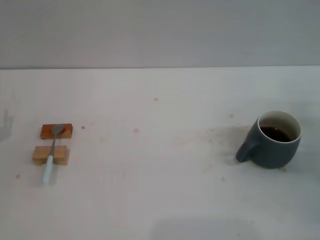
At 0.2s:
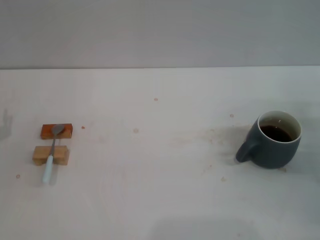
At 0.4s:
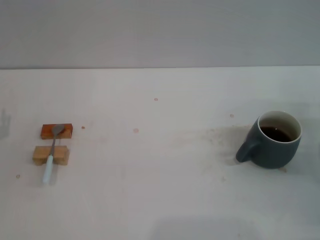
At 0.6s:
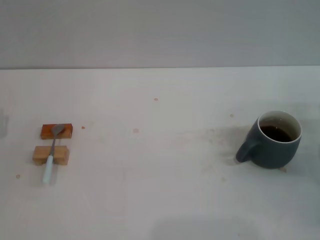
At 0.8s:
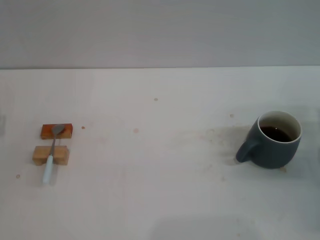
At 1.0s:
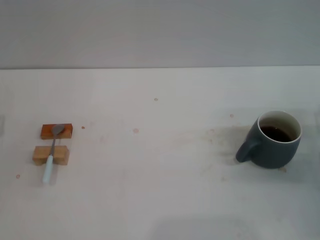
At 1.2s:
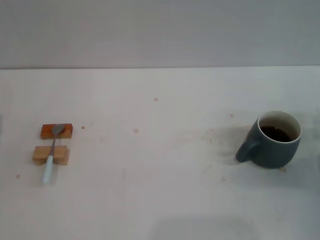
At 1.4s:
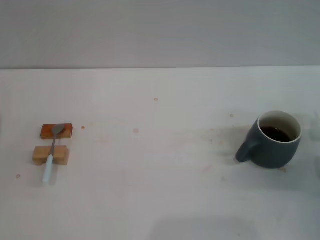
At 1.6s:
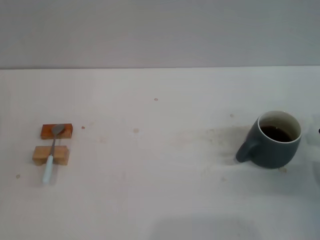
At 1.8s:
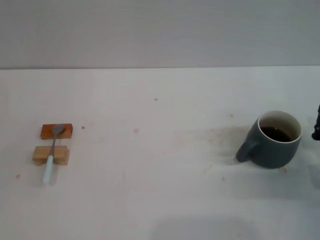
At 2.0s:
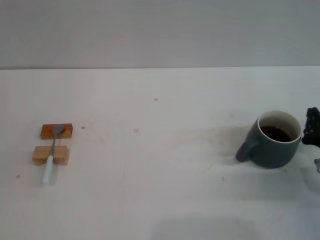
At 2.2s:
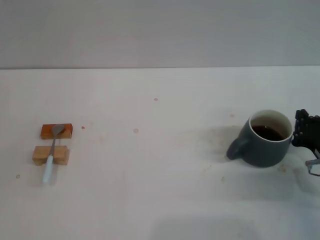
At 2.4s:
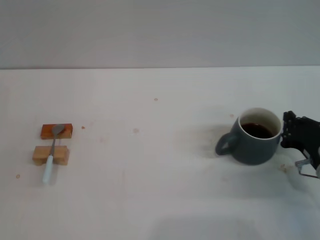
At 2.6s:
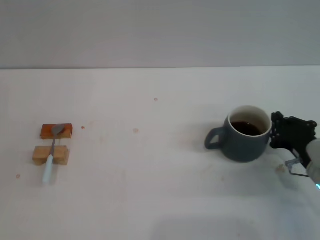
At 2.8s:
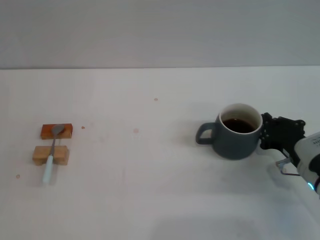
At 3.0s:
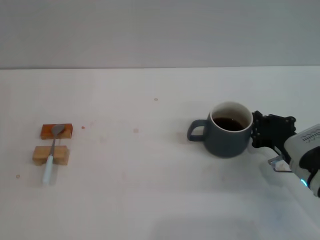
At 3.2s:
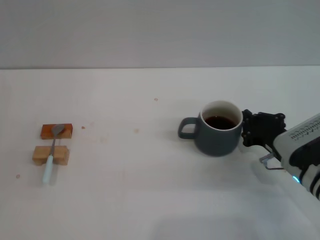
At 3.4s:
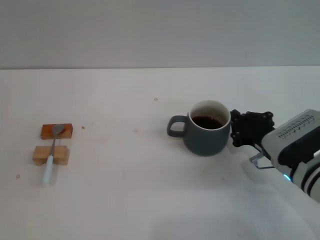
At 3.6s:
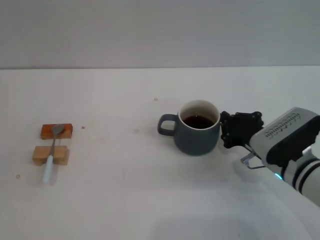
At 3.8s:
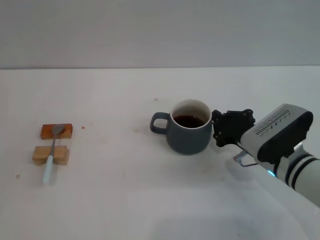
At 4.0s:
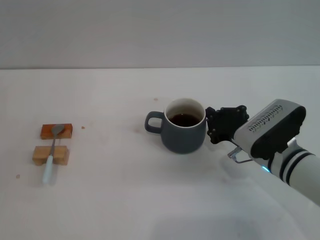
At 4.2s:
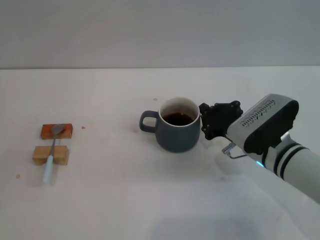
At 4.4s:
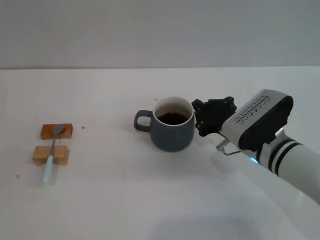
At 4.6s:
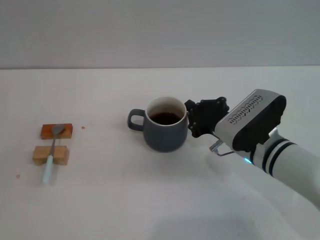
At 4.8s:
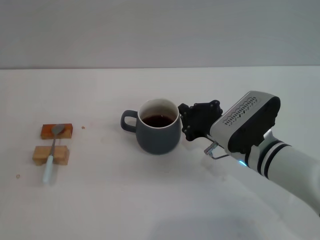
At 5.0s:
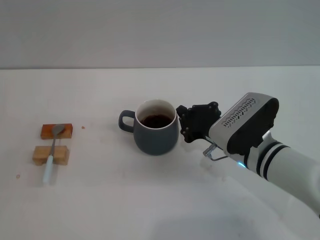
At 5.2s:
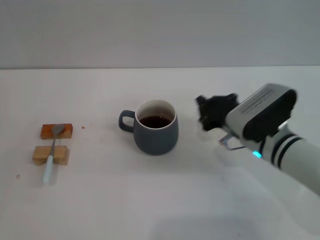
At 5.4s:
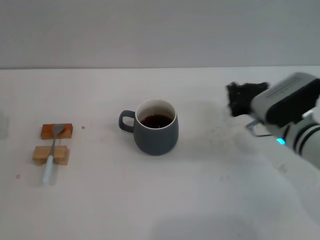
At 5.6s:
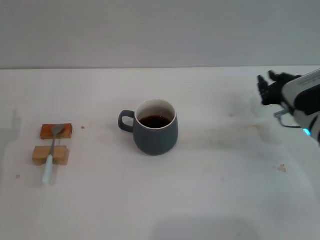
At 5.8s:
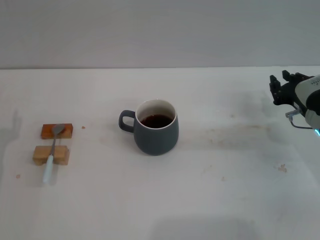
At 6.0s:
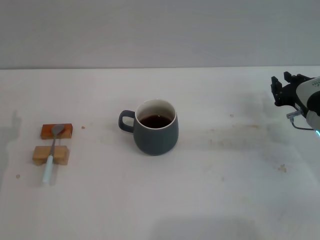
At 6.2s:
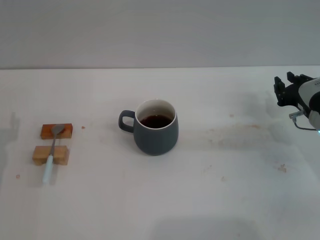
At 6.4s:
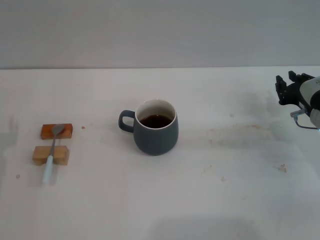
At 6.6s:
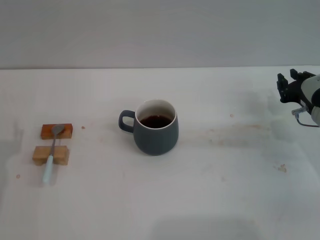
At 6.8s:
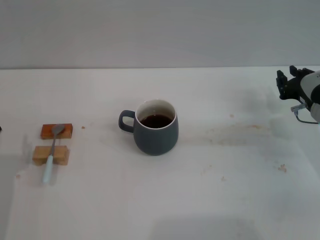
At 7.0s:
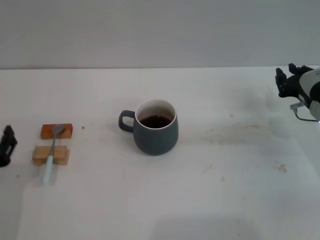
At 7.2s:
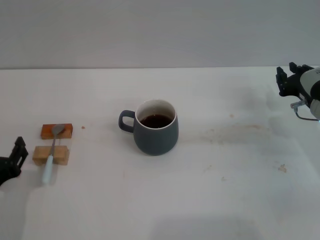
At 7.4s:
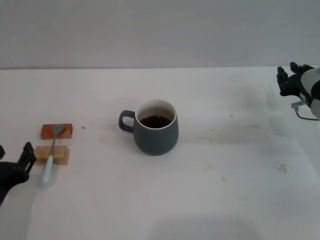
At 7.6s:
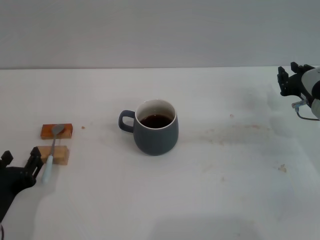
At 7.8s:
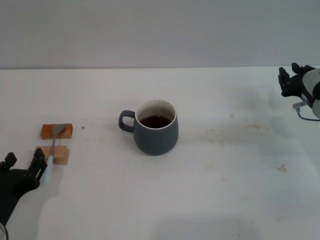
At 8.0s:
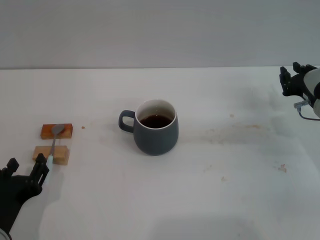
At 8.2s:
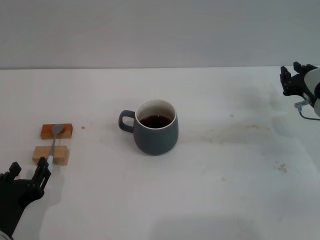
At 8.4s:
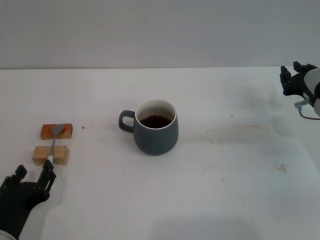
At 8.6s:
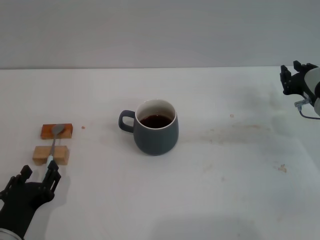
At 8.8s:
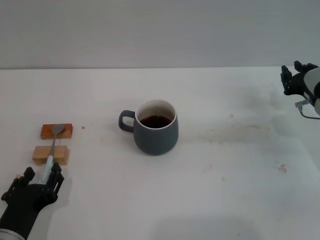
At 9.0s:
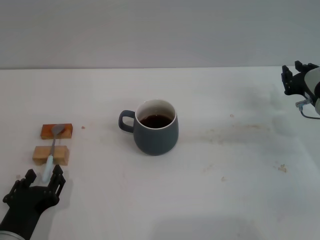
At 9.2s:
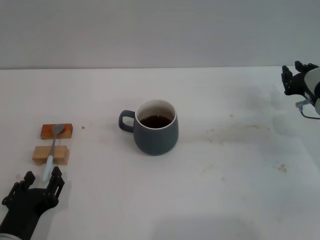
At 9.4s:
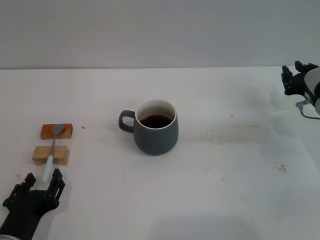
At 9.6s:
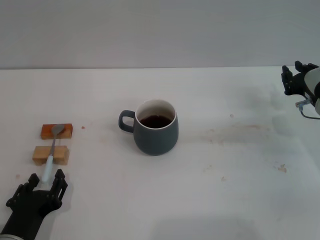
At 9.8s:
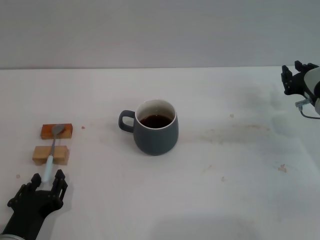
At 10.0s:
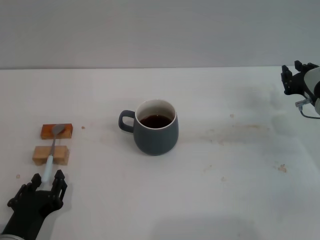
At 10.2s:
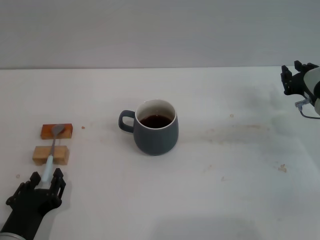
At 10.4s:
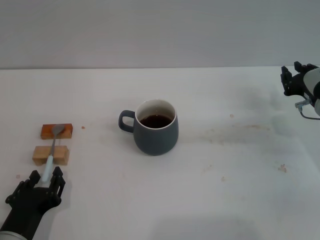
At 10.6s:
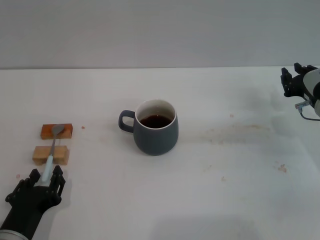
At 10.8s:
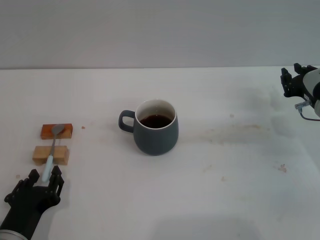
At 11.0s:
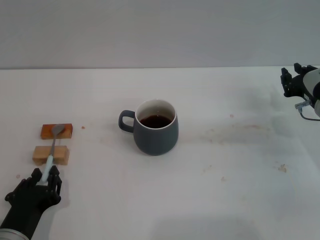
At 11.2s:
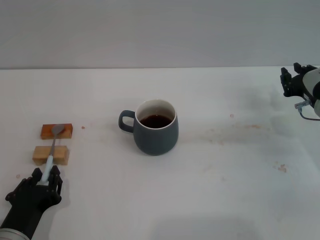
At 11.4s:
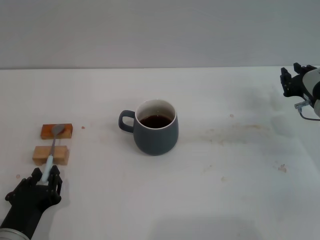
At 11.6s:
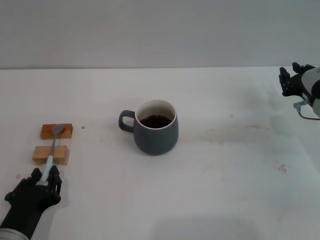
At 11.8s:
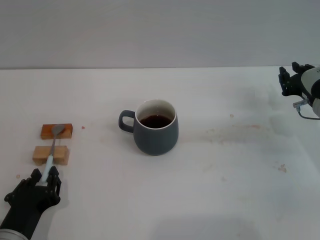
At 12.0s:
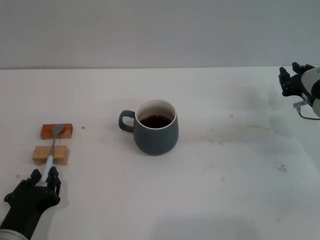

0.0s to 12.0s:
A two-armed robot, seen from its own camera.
Task of the whole recording: Move the grey cup to the center, lift the blue spoon, stir it three times in the cup, and put the spoon into the cup.
Step, 0.0s to 5.8s: Move the cup with coffee to the center of view with the right gripper.
1.6s to 3.0s: The right gripper is displaced to the left by roughly 10 cm.
3.0s to 4.4s: The right gripper moves to the left, approximately 10 cm.
4.4s to 6.0s: The right gripper goes about 10 cm to the right, and opens.
6.0s to 7.6s: The left gripper is displaced backward and to the right by approximately 15 cm.
7.6s to 9.0s: The grippers make only small movements.
9.0s to 12.0s: The two grippers keep their place.

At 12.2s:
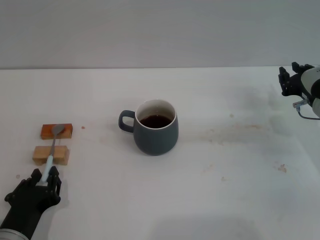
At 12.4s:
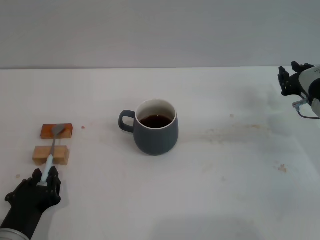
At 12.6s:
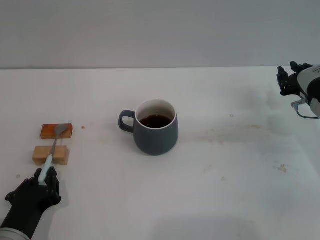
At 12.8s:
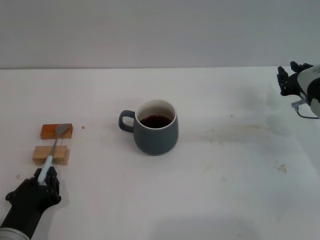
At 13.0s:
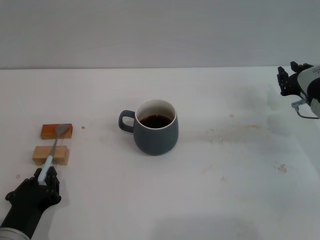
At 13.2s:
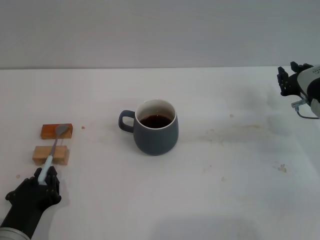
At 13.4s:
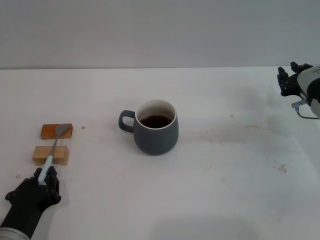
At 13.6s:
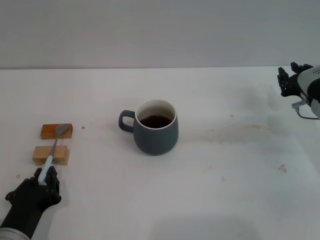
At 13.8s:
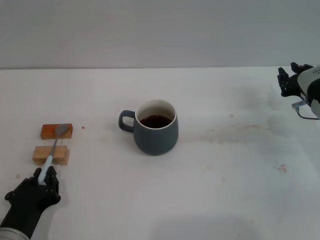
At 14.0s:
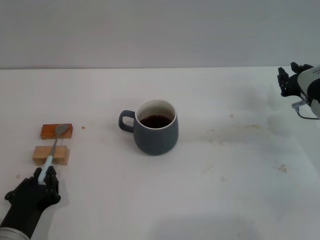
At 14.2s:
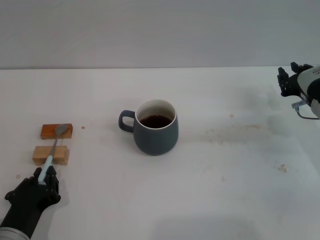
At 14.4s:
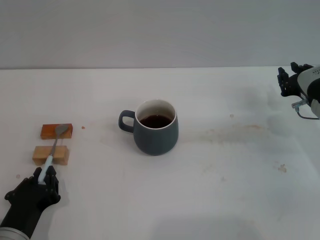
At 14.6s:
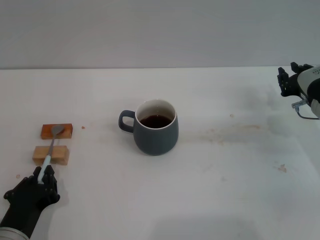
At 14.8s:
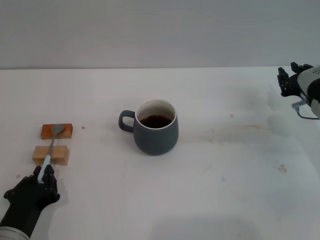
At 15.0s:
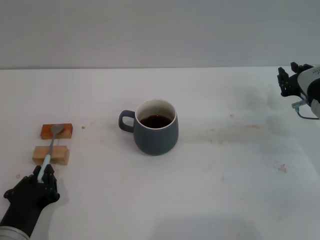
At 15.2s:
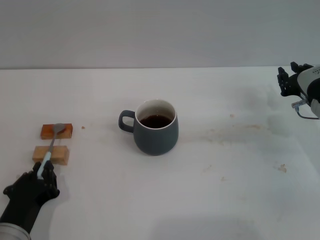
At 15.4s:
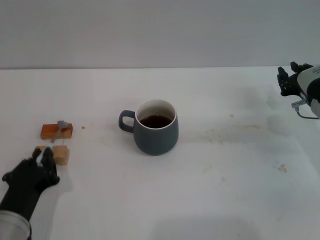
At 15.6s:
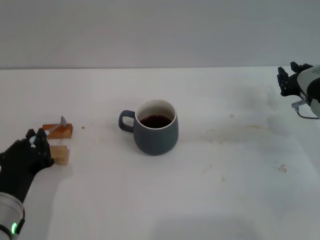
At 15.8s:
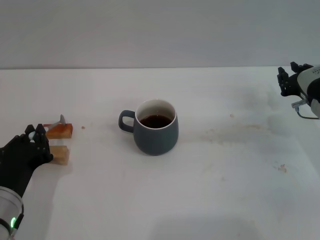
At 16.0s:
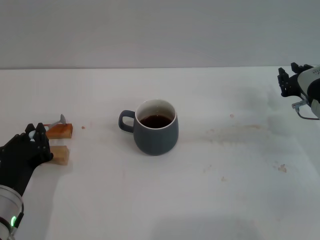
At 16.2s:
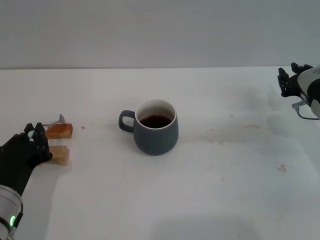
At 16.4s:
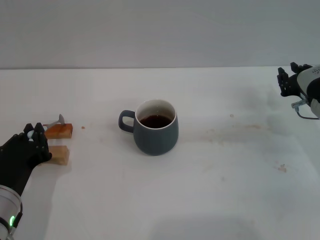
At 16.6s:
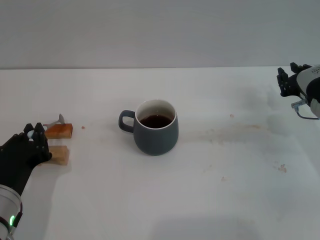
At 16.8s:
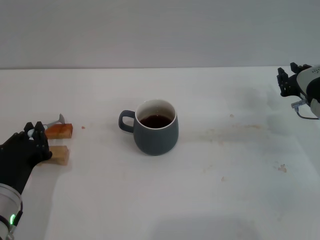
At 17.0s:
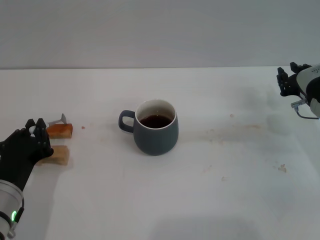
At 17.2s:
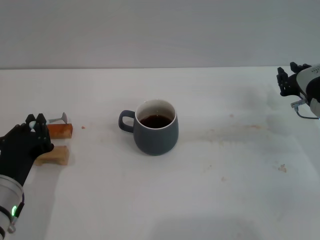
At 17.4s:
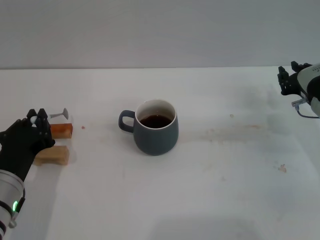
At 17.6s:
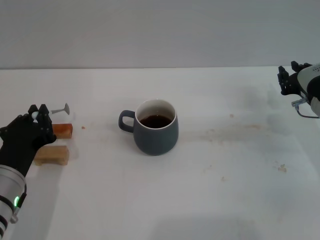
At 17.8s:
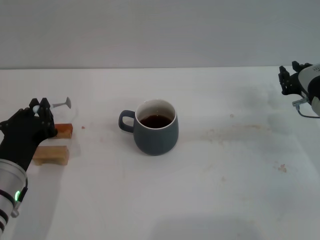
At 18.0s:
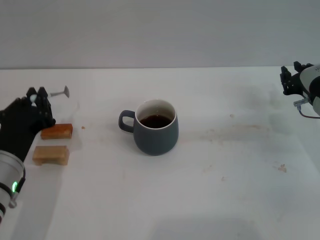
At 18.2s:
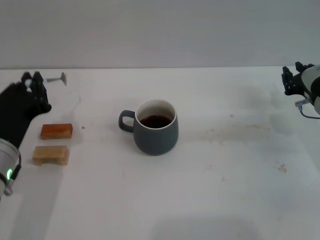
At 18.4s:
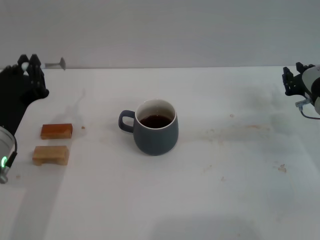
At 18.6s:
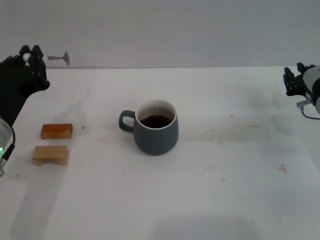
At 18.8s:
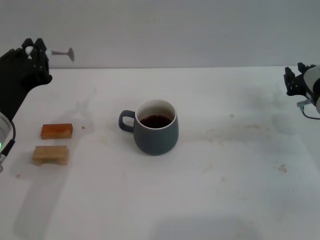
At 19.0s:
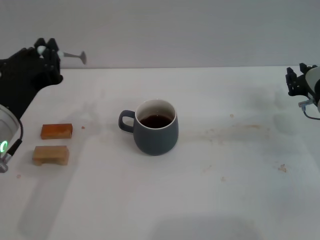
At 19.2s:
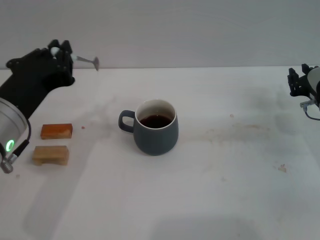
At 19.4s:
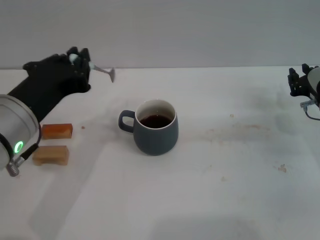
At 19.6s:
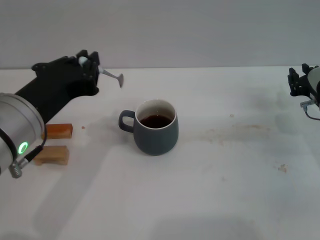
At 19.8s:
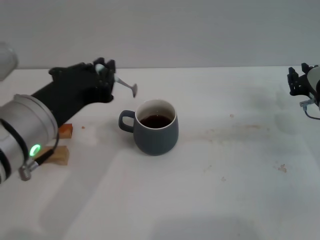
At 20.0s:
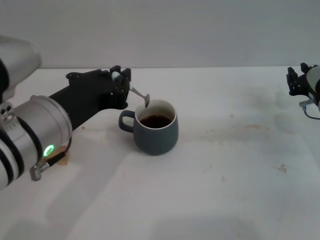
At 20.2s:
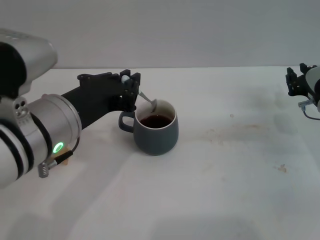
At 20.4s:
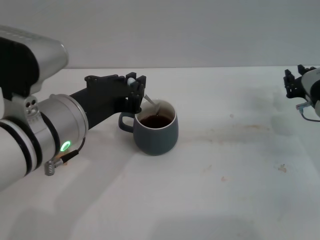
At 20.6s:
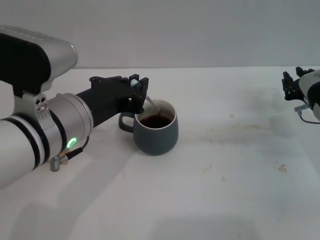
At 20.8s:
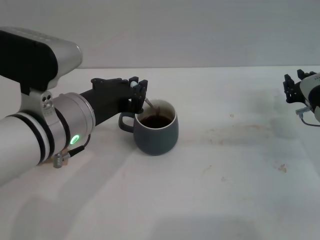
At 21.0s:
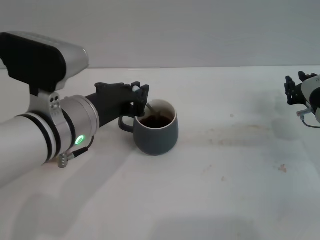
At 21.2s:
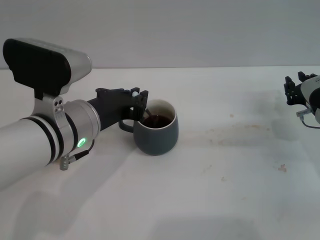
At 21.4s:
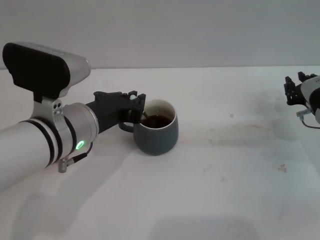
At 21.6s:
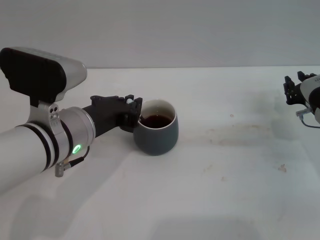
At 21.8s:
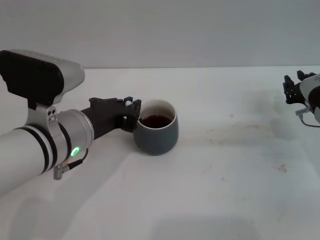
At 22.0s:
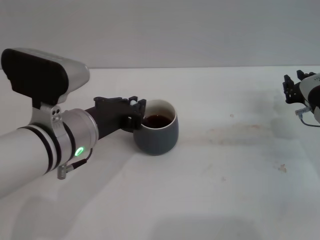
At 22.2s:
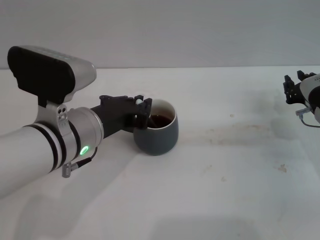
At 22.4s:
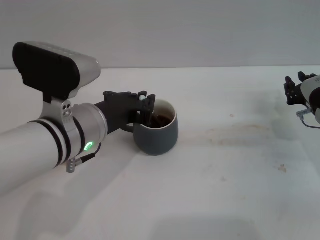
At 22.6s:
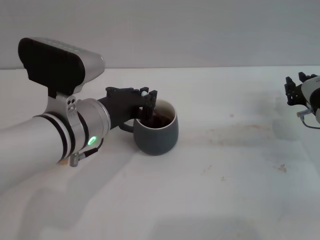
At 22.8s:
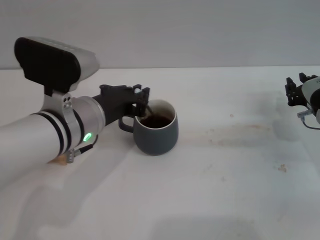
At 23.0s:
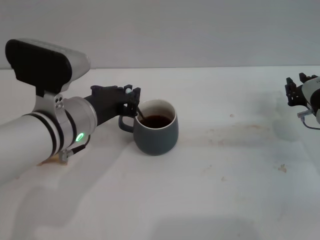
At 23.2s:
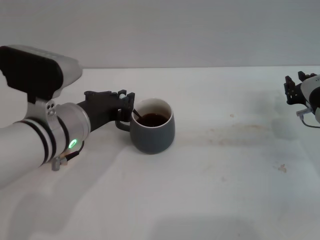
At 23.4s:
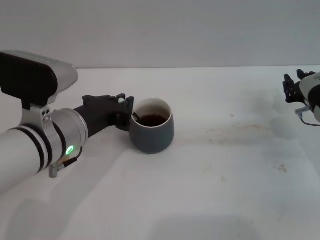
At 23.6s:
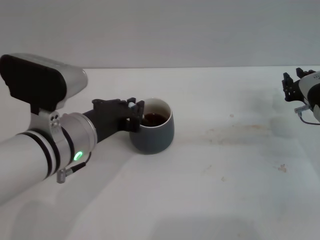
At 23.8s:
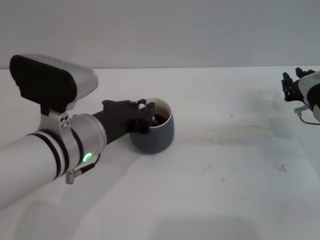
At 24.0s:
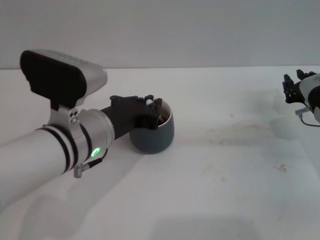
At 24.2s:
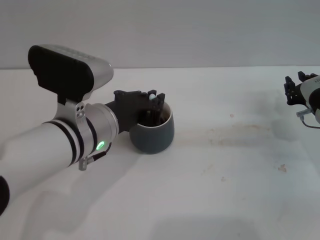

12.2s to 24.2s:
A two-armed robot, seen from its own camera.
Task of the whole recording: Move the grey cup to the center, lift the blue spoon, stir it three times in the cup, and put the spoon into the cup.
Step, 12.2s to 18.2s: Pick up the spoon with the left gripper.
12.2s to 15.2s: Neither gripper changes place.
15.2s to 16.6s: The left gripper ends up roughly 5 cm from where it was.
16.6s to 18.2s: The left gripper is displaced upward by approximately 5 cm.
18.2s to 19.8s: The left gripper is displaced upward and to the right by some 10 cm.
19.8s to 21.2s: The left gripper is displaced forward by roughly 5 cm.
21.2s to 22.6s: The two grippers keep their place.
22.6s to 24.2s: The grippers stay close to where they were, moving slightly.
